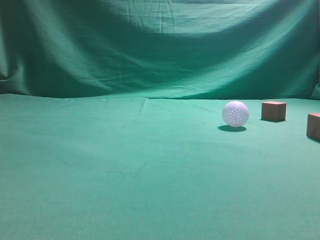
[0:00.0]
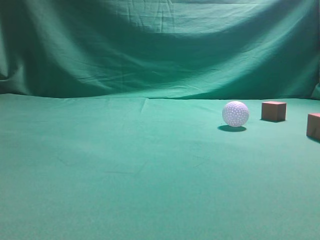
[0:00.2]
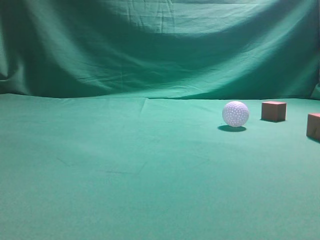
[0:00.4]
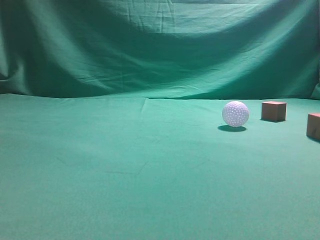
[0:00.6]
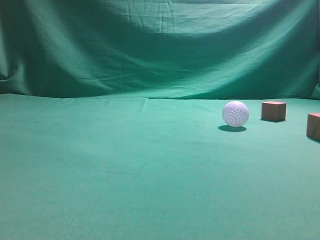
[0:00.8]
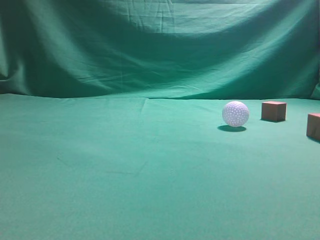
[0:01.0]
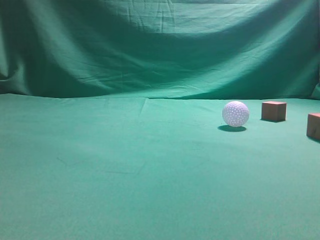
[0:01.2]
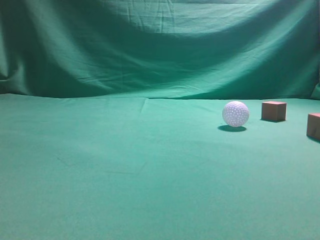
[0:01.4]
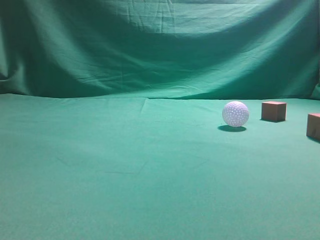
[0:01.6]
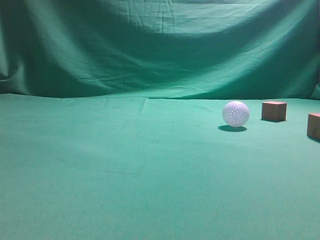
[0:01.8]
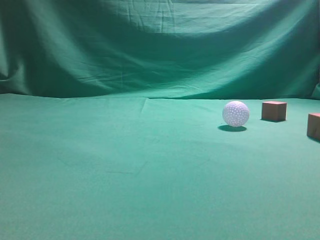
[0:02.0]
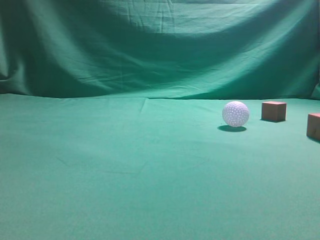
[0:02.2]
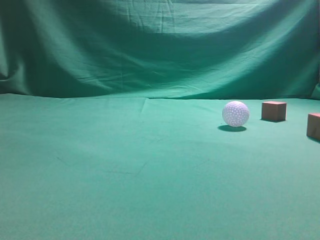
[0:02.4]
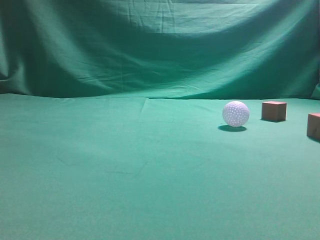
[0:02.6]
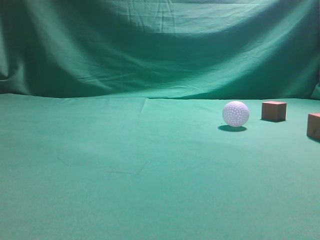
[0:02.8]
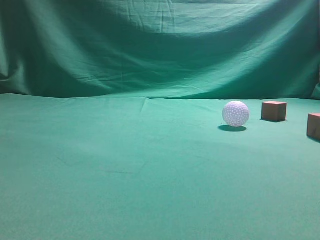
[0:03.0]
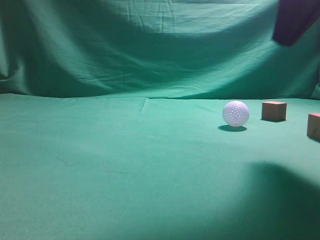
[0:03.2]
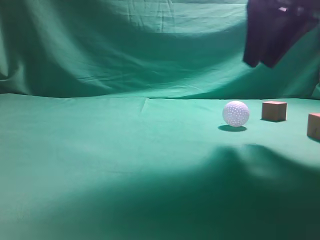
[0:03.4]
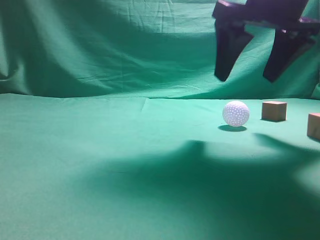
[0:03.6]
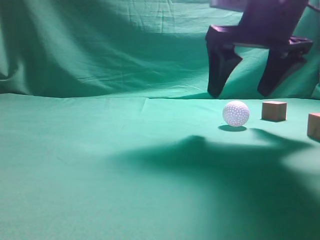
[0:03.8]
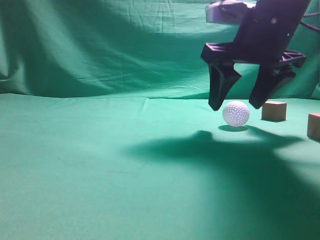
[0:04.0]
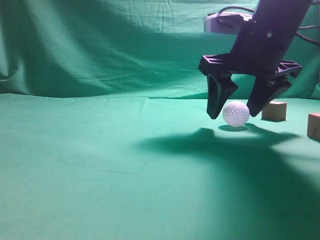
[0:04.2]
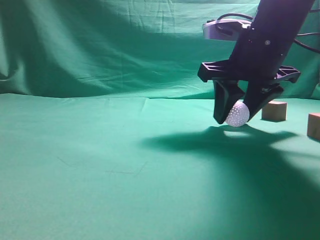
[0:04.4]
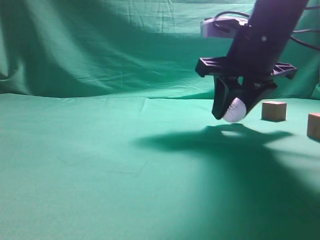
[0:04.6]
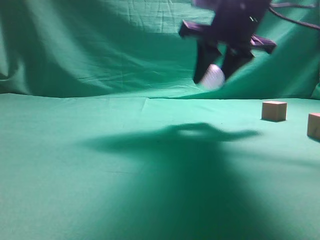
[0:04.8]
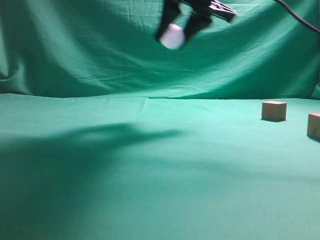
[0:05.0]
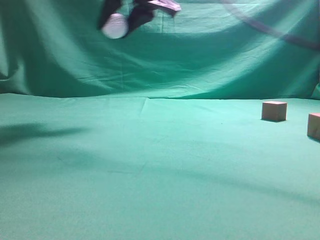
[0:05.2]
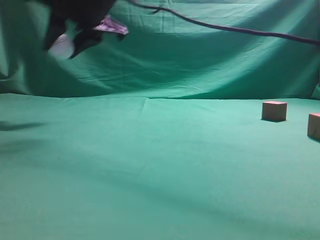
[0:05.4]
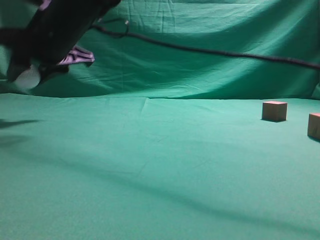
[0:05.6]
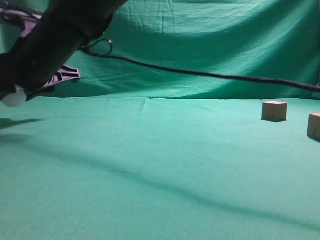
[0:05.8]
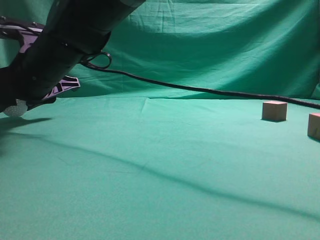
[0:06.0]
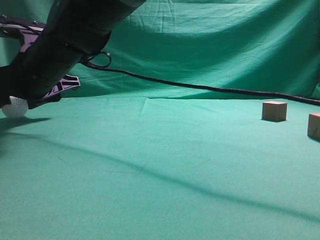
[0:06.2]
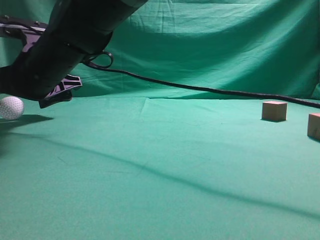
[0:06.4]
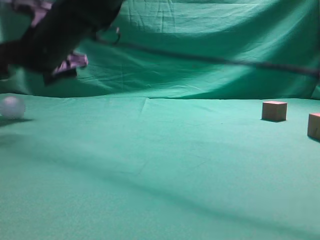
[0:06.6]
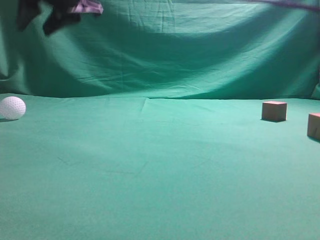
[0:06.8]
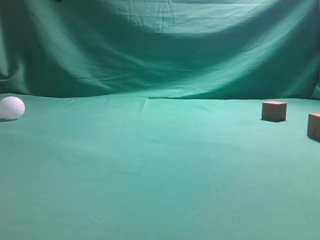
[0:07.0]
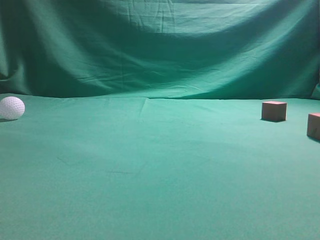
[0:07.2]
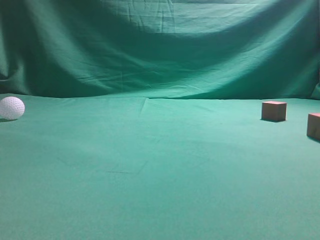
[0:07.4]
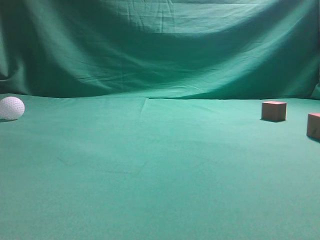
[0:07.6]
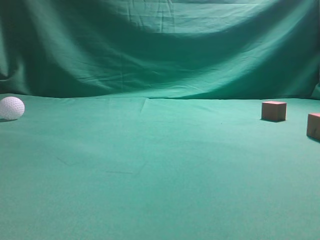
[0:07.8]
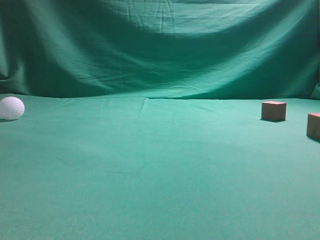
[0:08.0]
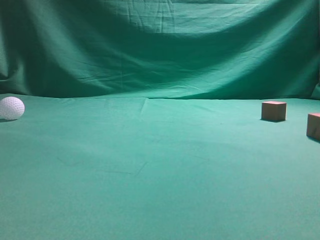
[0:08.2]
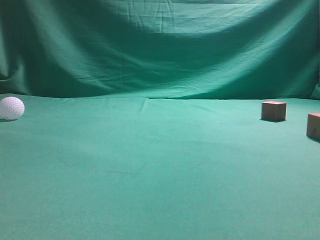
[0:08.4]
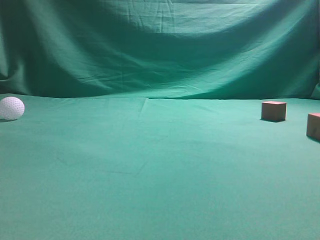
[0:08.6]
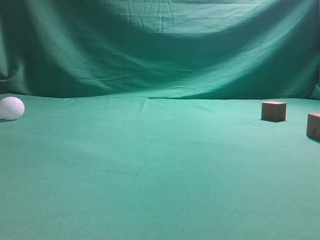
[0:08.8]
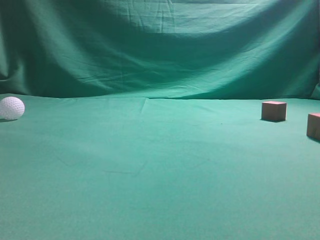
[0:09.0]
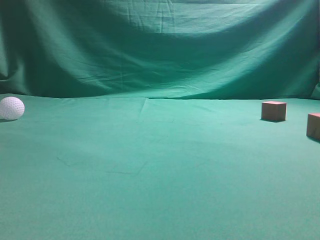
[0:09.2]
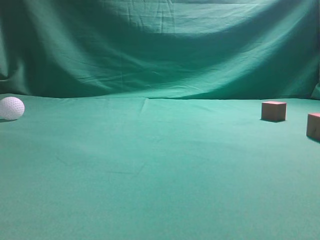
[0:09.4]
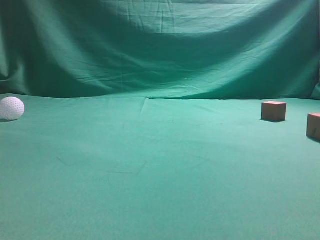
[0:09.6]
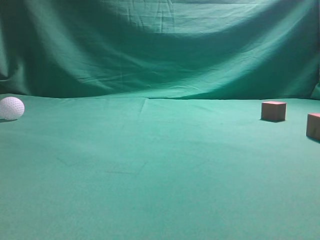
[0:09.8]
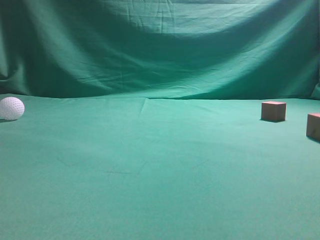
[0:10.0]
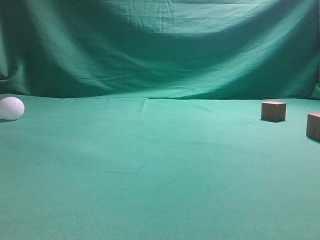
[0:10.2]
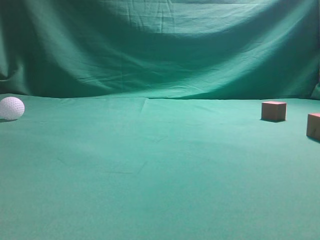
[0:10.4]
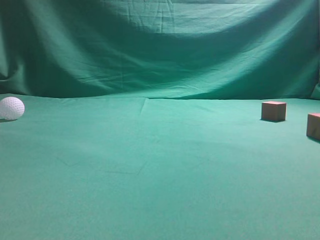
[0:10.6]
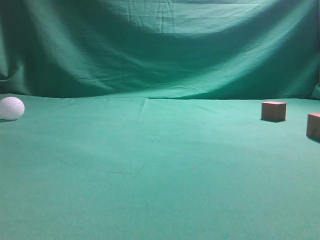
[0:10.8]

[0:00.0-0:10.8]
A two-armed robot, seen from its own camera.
Step, 0:00.0 to 0:03.8: Grasp the spherical object on the right side.
0:03.0 to 0:04.6: The right gripper moves forward, downward and to the left, about 20 cm, and opens its fingers.
0:04.6 to 0:06.2: The right gripper travels to the left by approximately 30 cm.
0:06.2 to 0:07.8: The right gripper moves to the right and upward, approximately 40 cm, and closes up.
